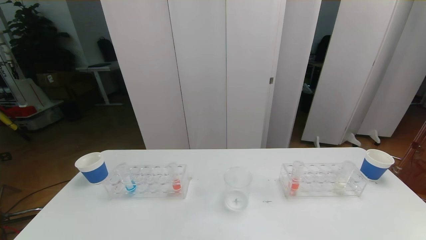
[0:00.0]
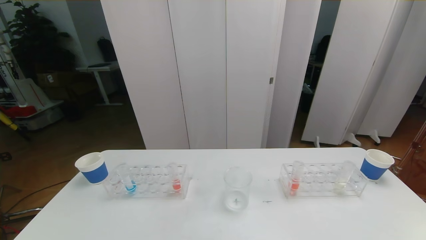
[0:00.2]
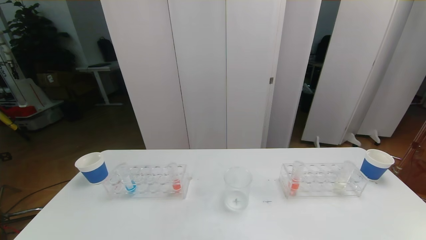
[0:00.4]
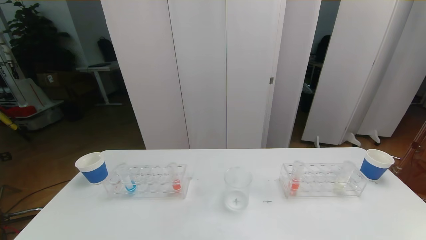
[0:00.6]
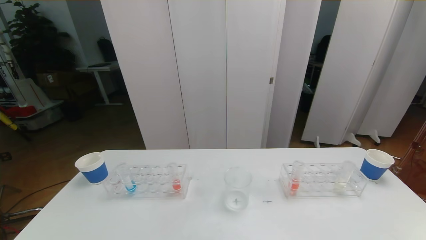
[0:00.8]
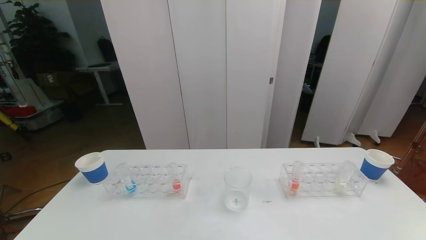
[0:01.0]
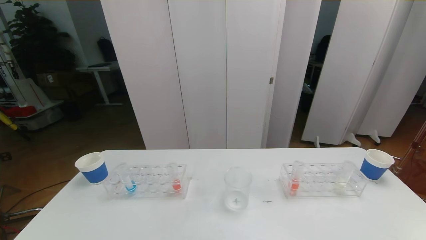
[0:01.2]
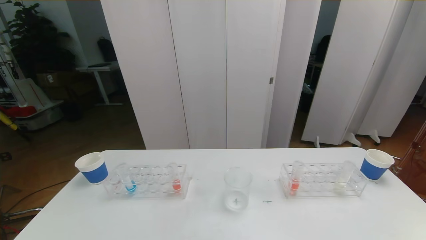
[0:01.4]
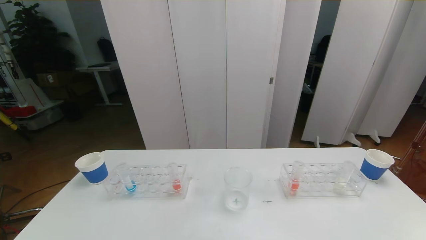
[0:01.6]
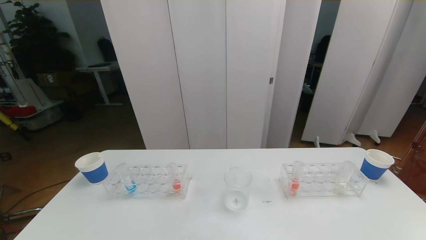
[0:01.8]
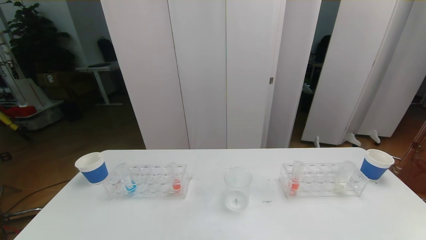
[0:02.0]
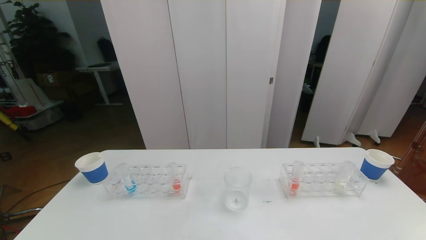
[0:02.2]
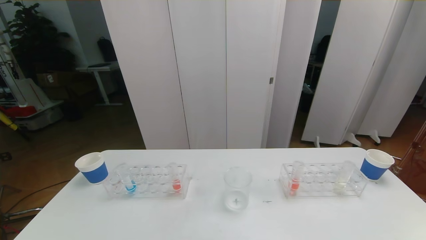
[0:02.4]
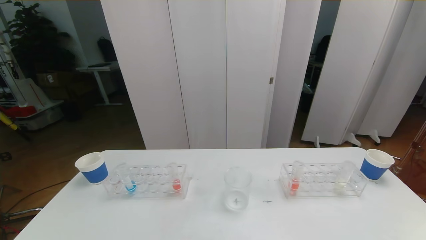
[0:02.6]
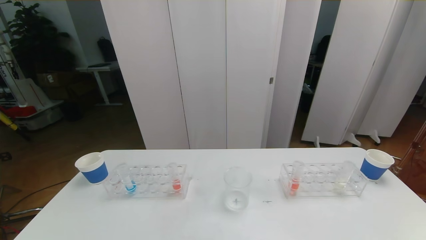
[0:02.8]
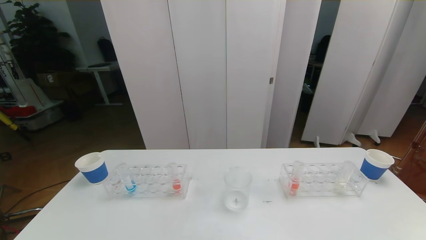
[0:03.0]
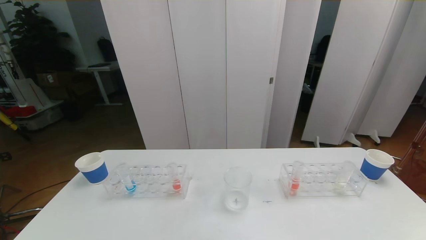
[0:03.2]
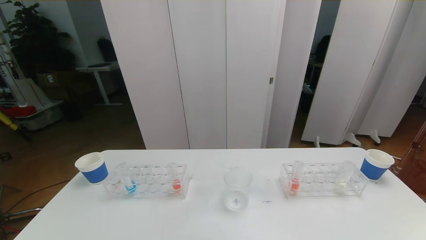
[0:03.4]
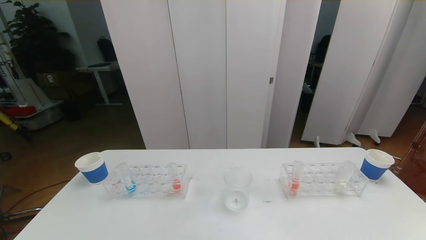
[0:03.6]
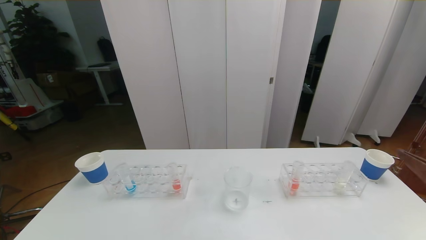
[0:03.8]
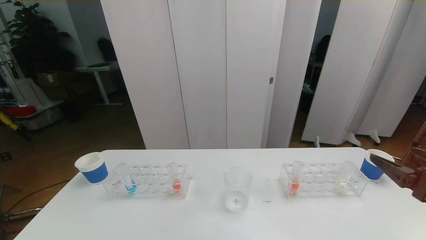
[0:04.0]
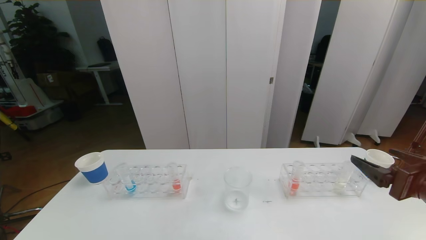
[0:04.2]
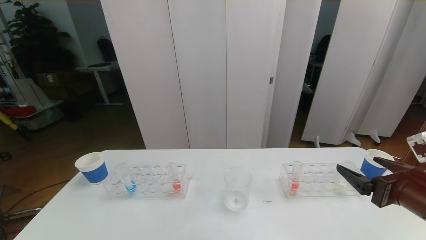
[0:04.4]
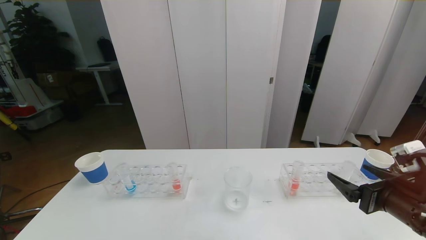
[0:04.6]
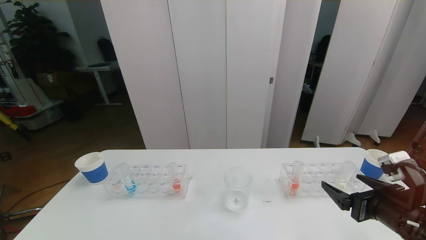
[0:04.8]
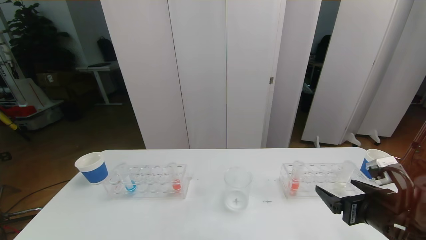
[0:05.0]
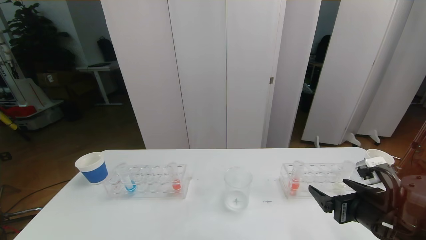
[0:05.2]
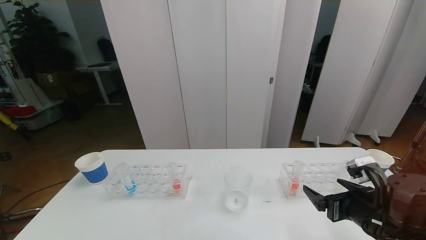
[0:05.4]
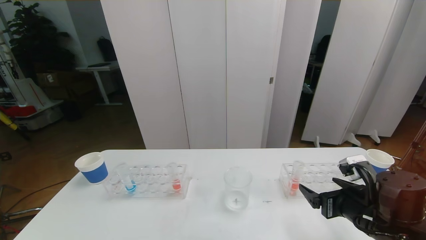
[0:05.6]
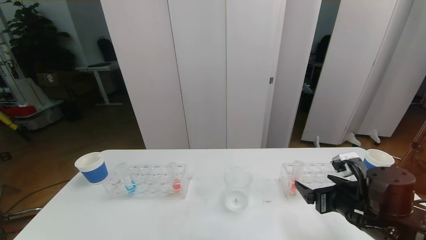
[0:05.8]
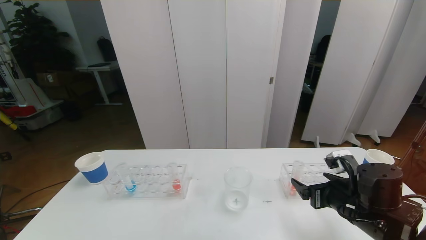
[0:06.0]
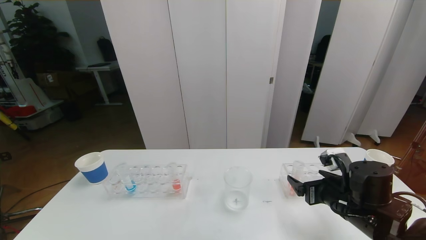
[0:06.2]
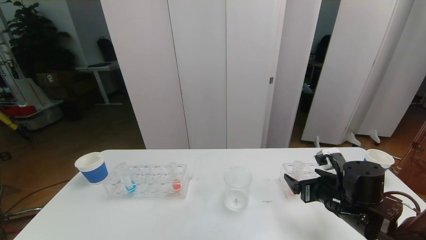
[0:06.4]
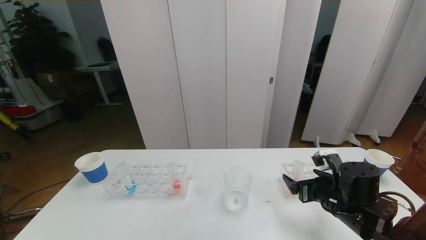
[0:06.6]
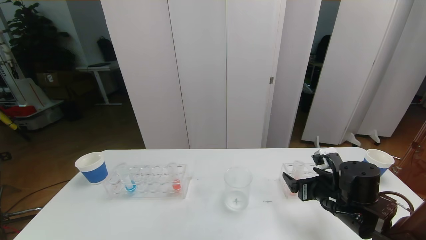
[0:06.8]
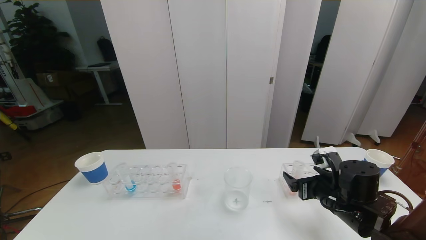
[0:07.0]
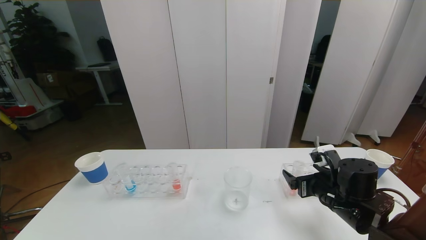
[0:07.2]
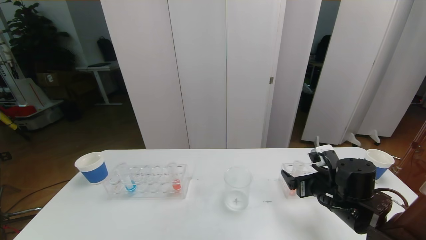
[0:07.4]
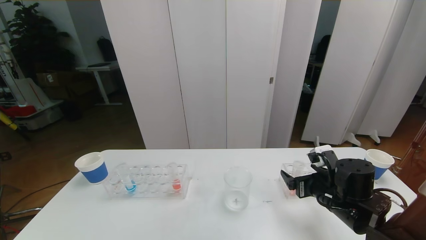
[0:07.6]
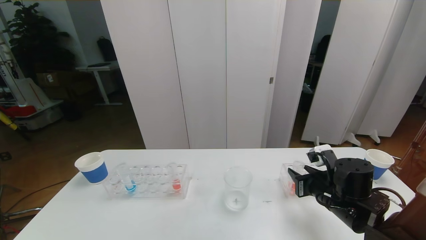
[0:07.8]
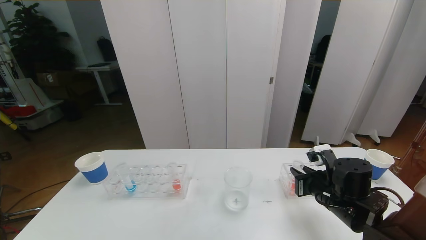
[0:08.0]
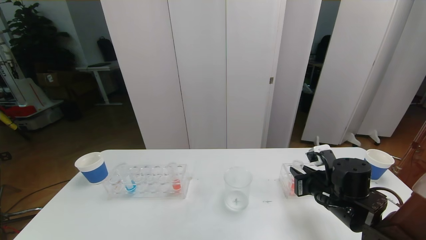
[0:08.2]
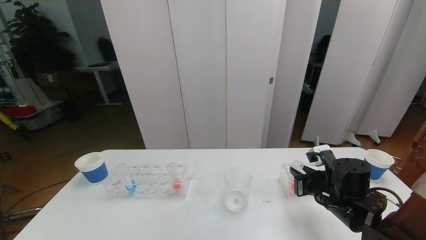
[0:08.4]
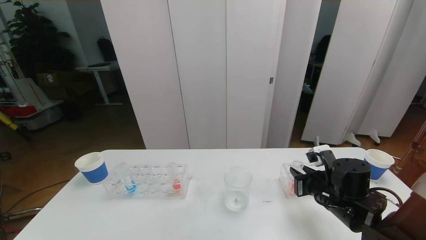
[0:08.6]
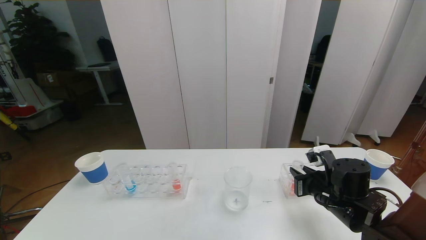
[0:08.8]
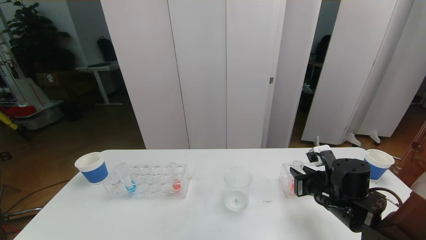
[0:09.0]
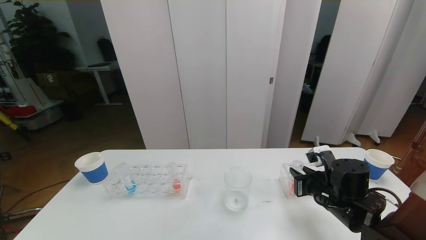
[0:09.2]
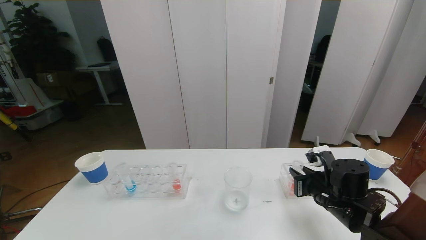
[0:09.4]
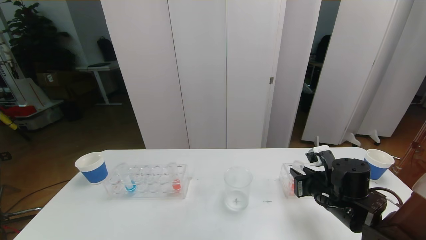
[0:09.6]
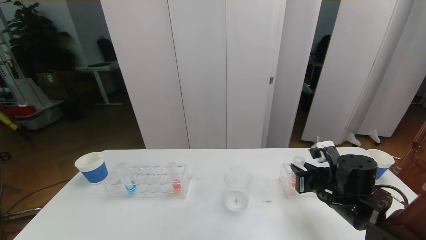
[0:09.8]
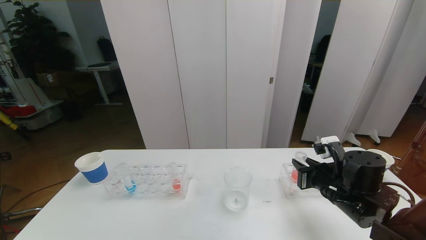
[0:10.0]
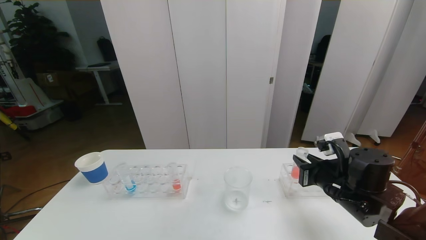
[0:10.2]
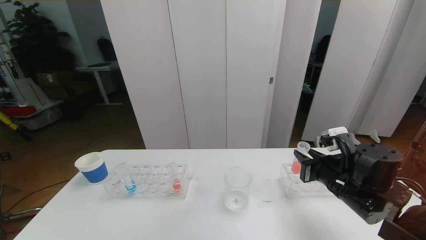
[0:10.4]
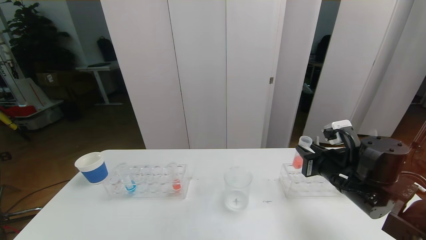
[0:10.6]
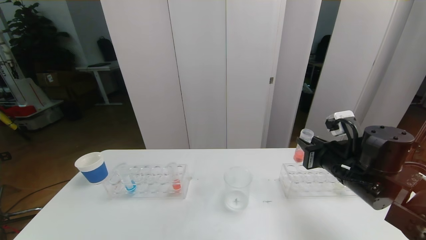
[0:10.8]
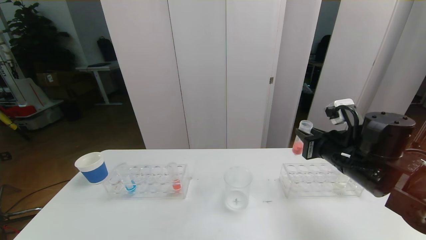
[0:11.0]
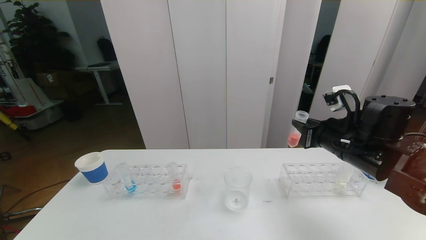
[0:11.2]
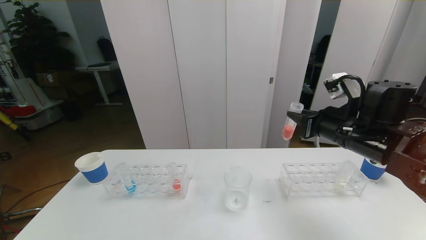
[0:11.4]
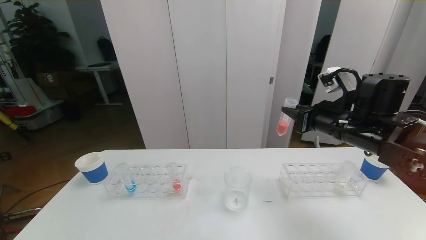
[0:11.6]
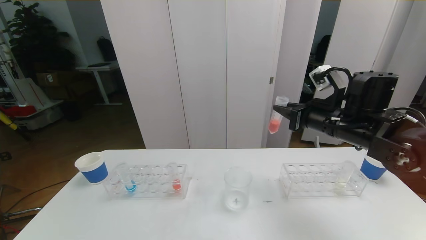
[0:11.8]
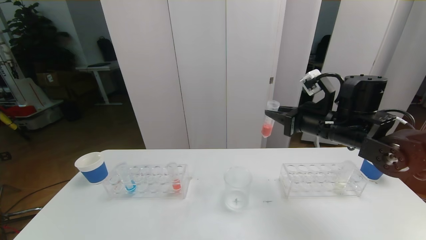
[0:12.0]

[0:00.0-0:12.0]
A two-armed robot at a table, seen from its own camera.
Task of the whole recording: pick up the test tube with red pigment the test tube with blue pigment and the test tube with white pigment by grippers and pour them into the beaker.
0:00.0 to 0:01.6: Both grippers stay put.
0:03.0 to 0:04.4: The right gripper moves forward, some 20 cm.
0:04.4 to 0:06.0: The right gripper goes about 10 cm downward, forward and to the left.
0:06.0 to 0:07.6: The grippers stay close to where they were, moving slightly.
0:07.6 to 0:09.0: The right gripper closes its fingers.
0:09.0 to 0:10.4: The right gripper heads upward, covering approximately 5 cm.
0:10.4 to 0:12.0: The right gripper shifts some 10 cm upward and forward.

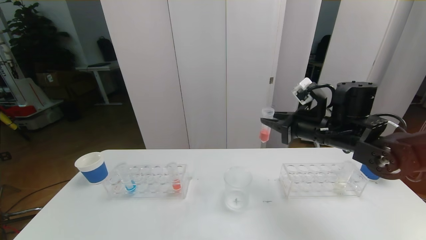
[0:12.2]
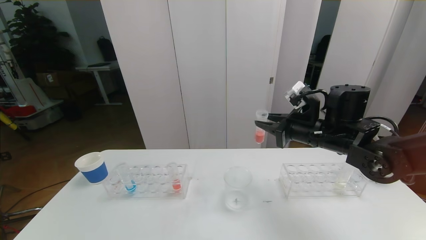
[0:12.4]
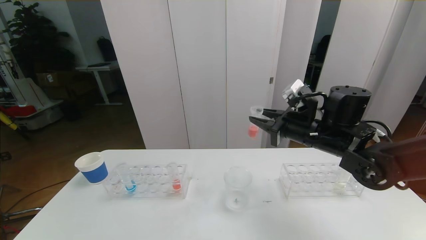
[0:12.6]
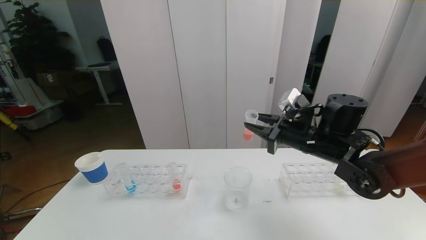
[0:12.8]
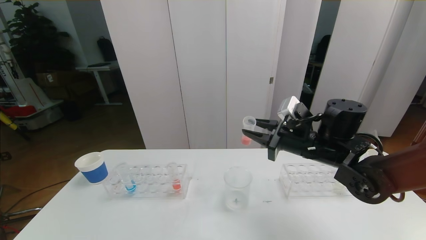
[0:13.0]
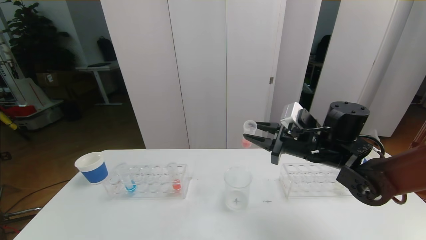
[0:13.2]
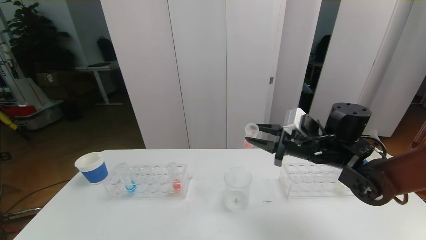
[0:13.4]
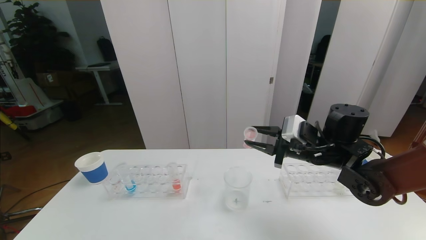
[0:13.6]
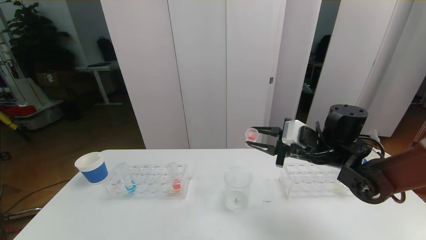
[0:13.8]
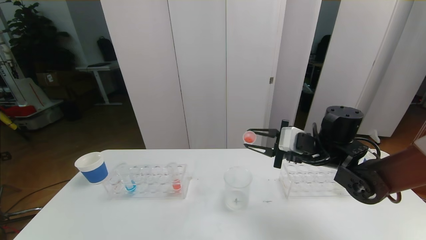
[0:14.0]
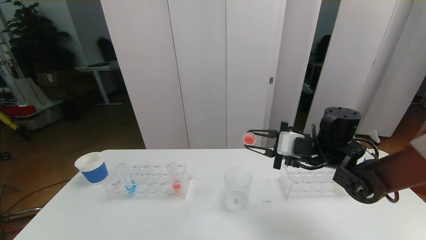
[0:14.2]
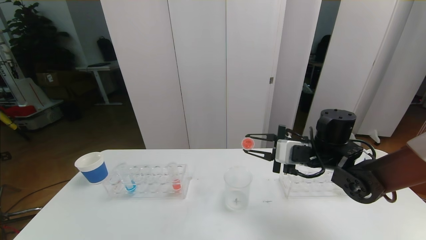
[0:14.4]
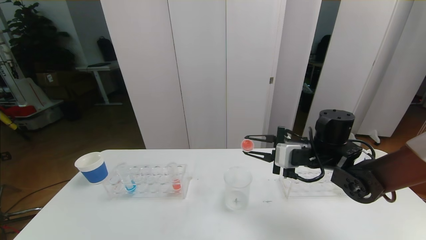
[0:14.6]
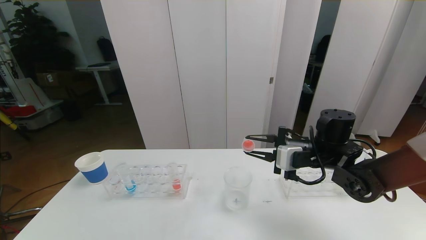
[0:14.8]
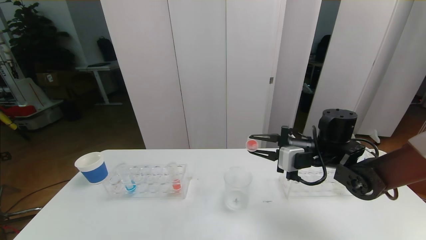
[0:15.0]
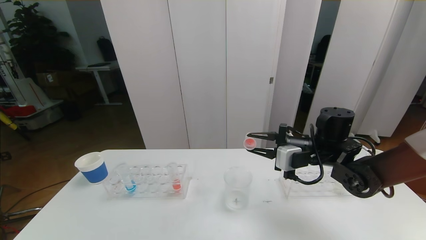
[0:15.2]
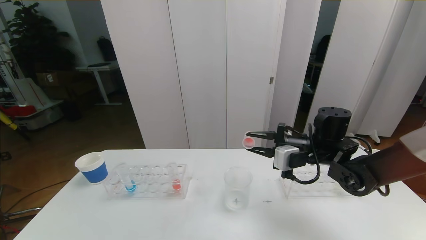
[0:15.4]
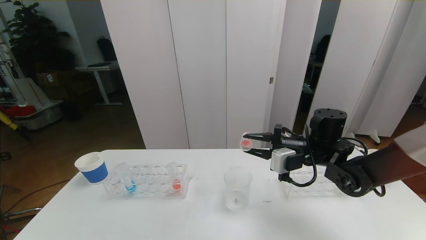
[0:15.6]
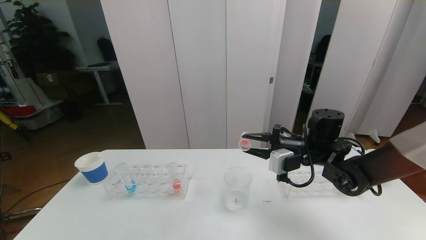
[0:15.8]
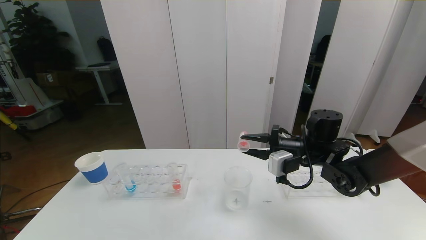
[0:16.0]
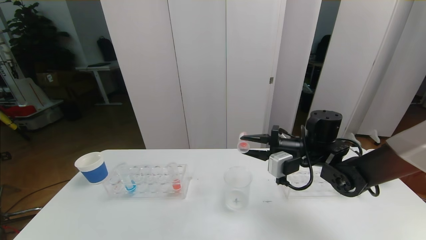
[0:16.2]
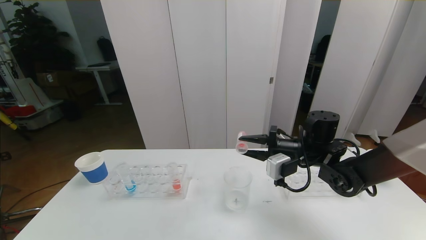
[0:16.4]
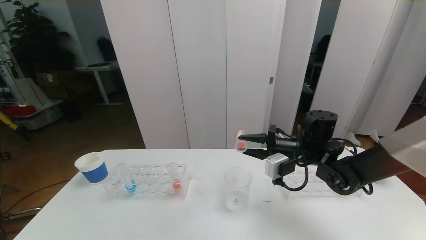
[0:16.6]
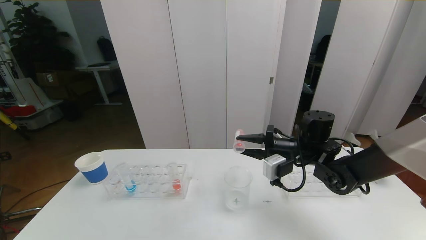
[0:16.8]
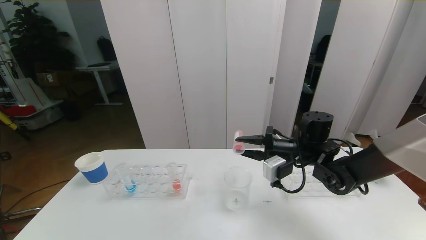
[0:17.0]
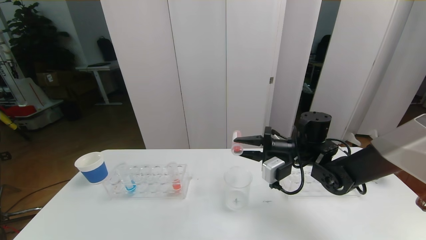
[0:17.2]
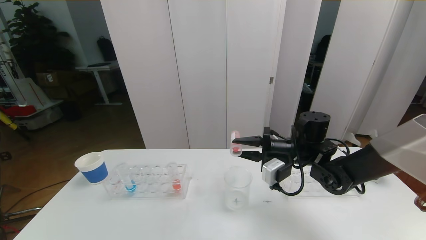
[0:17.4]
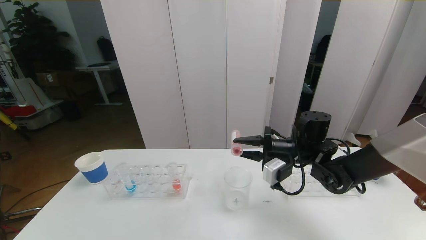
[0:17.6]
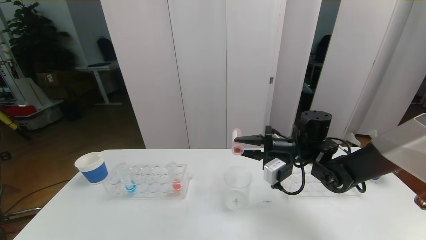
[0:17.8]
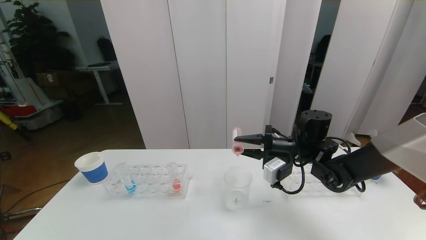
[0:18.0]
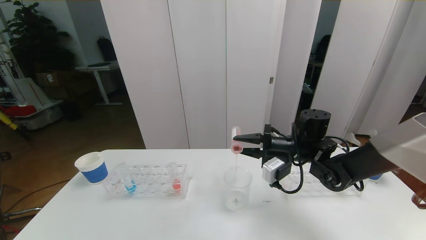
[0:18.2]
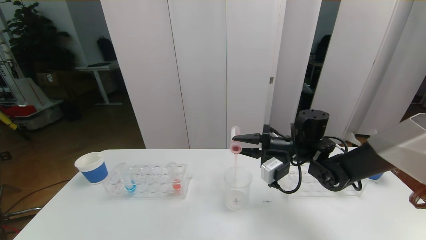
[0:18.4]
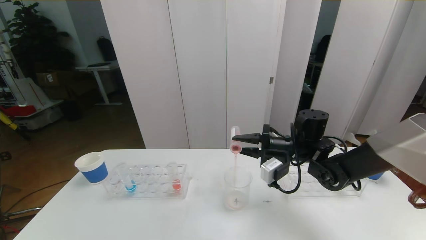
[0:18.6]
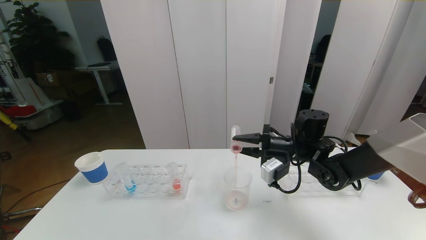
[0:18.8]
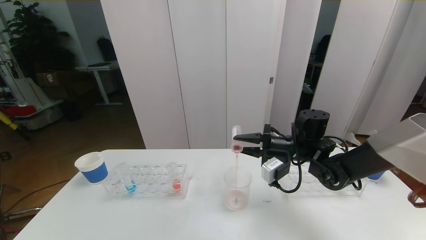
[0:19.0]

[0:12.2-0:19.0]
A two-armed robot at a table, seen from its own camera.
Task of the whole recording: pick up the test tube with red pigment the test tube with blue pigment and the test tube with white pigment by grippers and pour them into the beaker.
0:15.0 to 0:16.2: The grippers stay close to where they were, moving slightly.
0:16.2 to 0:19.0: The grippers move only a little.
